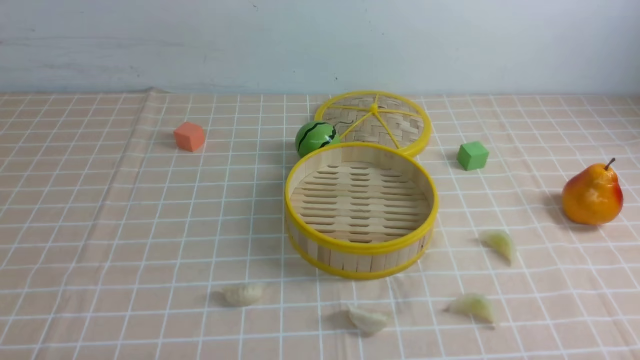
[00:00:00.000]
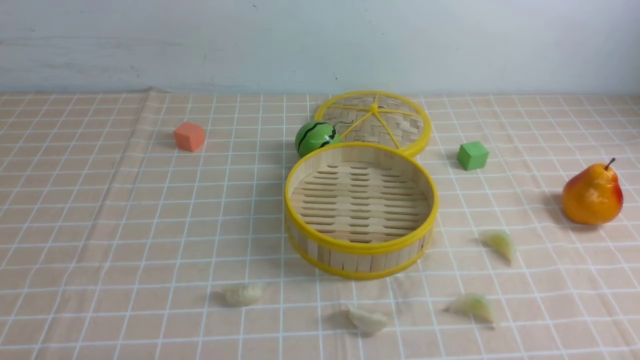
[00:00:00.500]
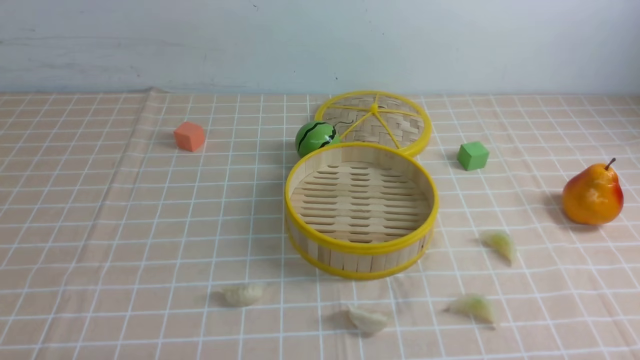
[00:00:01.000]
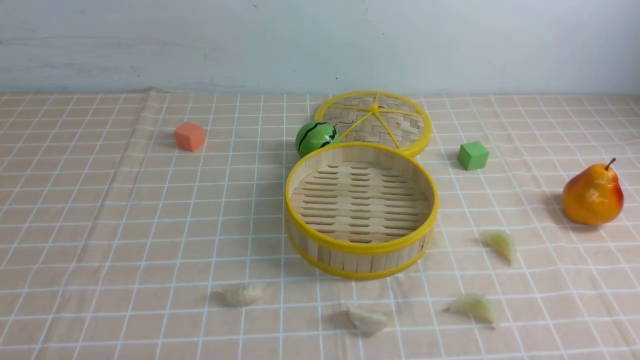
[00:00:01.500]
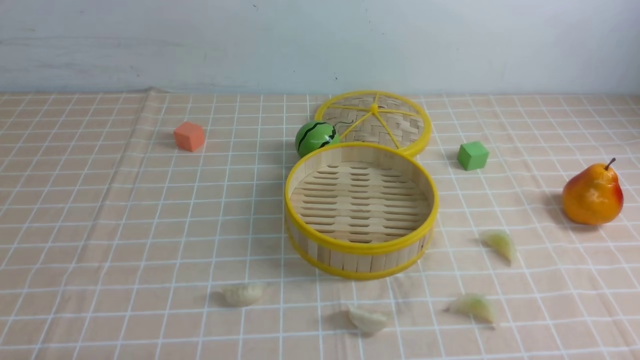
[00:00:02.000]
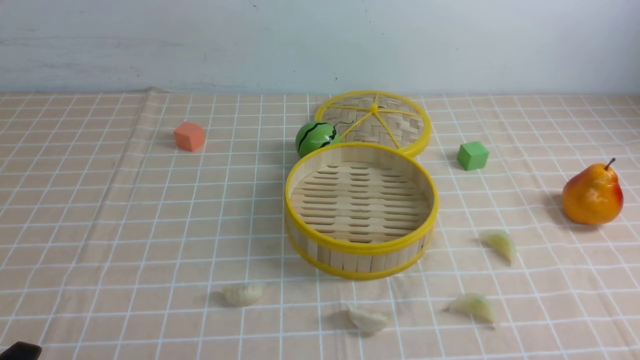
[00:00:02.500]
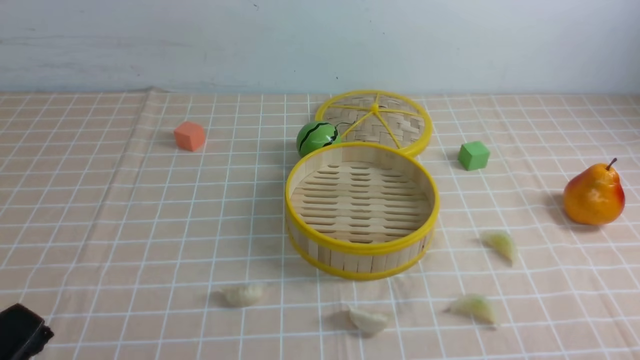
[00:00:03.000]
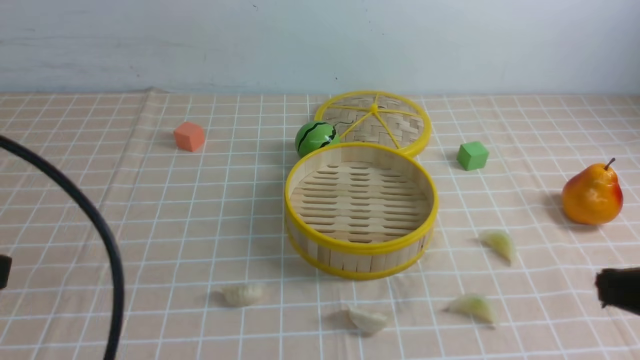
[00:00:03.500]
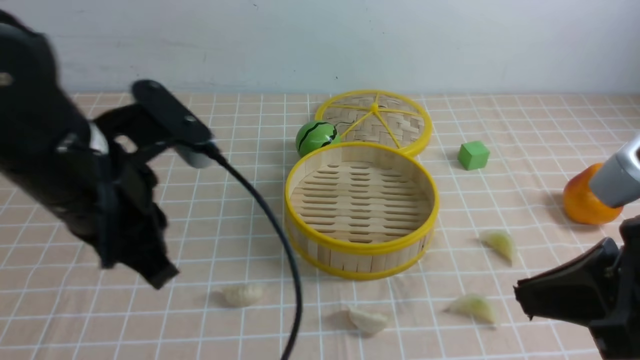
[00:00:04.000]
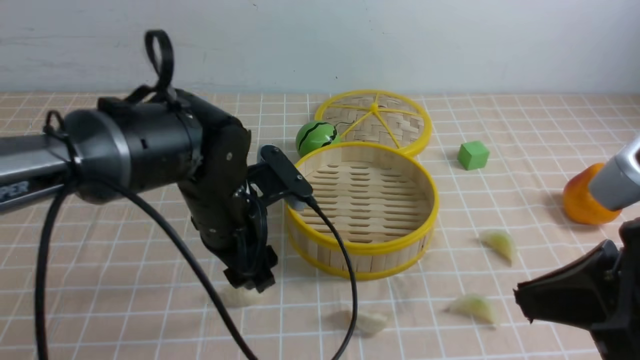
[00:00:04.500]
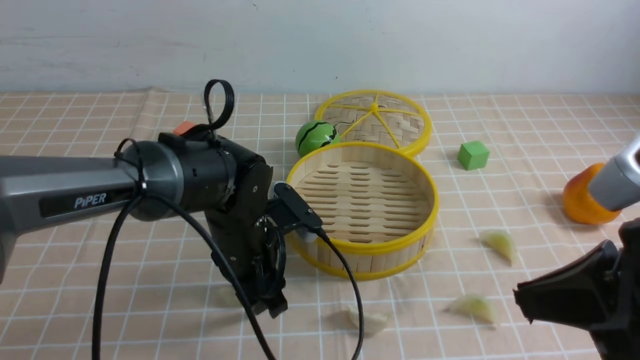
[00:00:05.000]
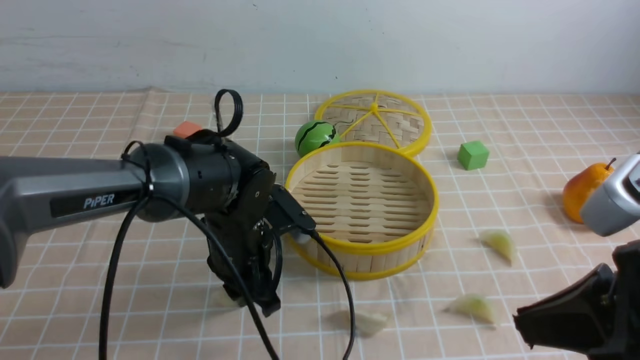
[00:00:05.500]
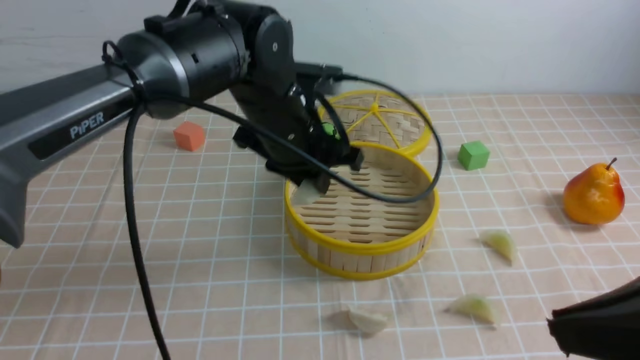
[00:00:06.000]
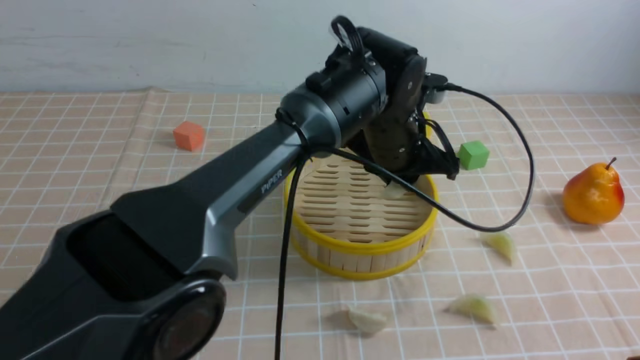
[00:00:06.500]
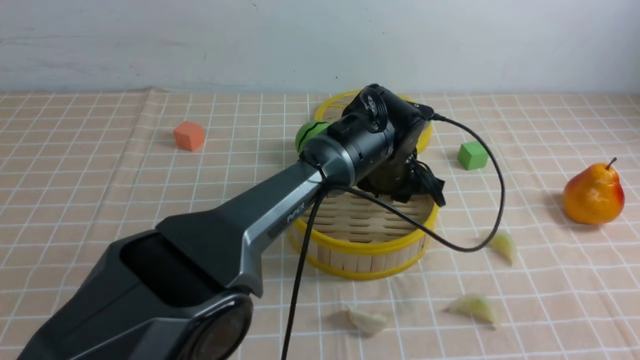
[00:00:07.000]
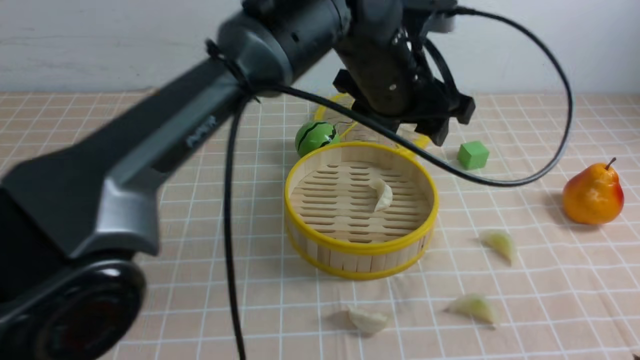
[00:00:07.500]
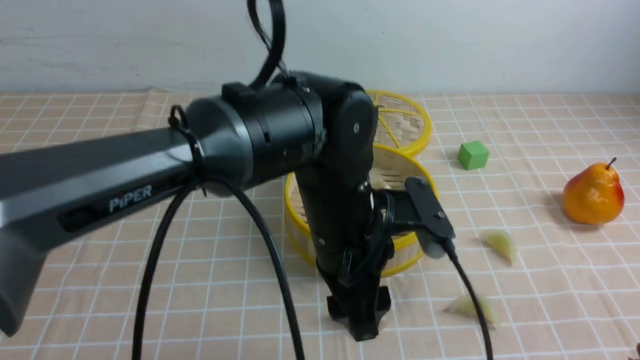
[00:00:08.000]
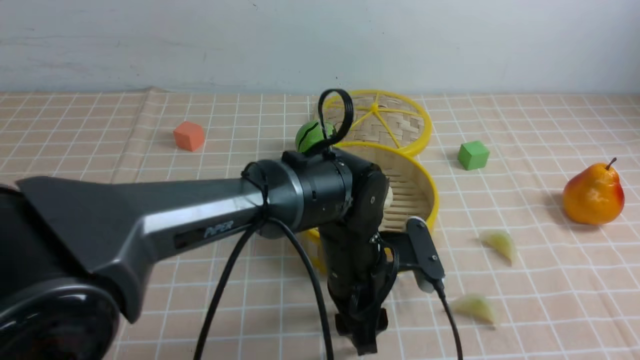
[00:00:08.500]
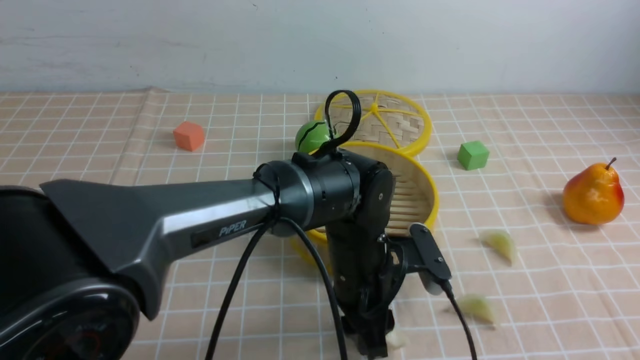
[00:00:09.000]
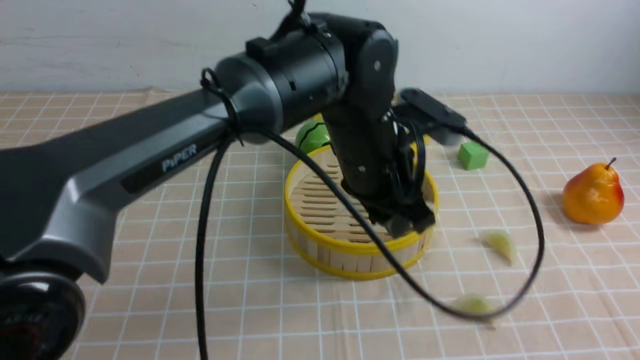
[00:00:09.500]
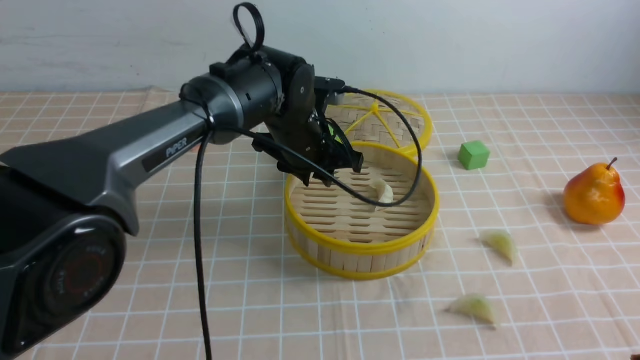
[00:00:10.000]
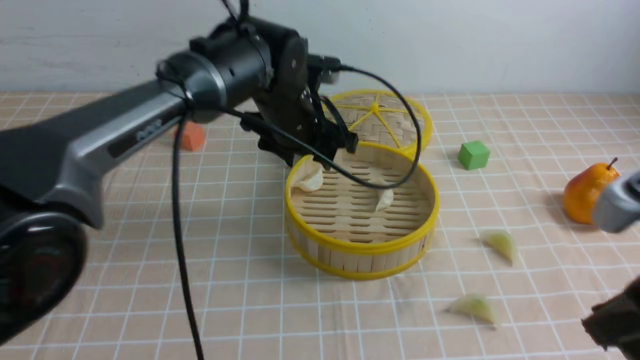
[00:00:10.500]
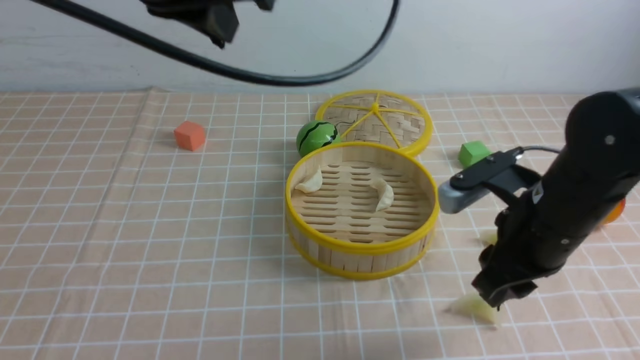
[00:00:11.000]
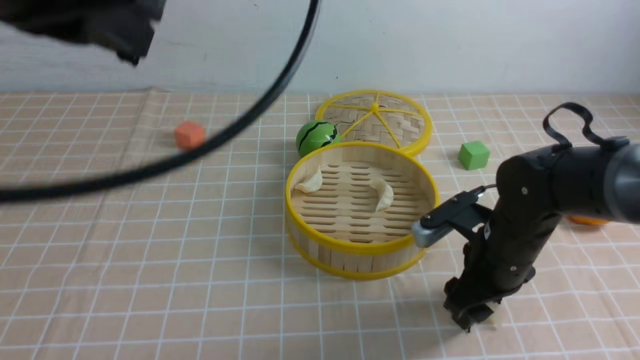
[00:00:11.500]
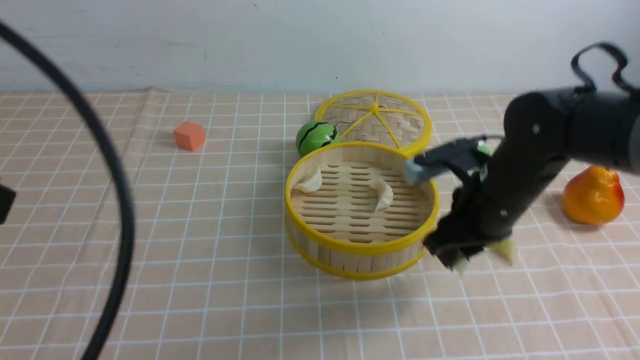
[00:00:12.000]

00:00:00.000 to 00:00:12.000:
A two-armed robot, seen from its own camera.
Task of the whole recording: put the dumplings into the steamer on the table with the brown tablecloth.
Step, 00:00:00.000 to 00:00:05.500: use the left arm to grab a dumpling.
Step, 00:00:06.000 to 00:00:07.000: use the left arm to put the dumpling into the steamer.
Step, 00:00:07.500 to 00:00:08.500: use the left arm to grab a dumpling.
Step, 00:00:09.000 to 00:00:10.500: use the left arm to put the dumpling into the steamer.
Step, 00:00:11.000 to 00:00:11.500: use the right arm to grab a dumpling.
00:00:02.000 to 00:00:04.000: The right gripper shifts about 20 cm upward, forward and to the left, and closes its fingers. Meanwhile the left gripper is displaced upward, forward and to the right by roughly 25 cm.
00:00:04.000 to 00:00:06.000: The left gripper travels forward, to the right and downward by some 20 cm, and opens, then closes again.
00:00:06.000 to 00:00:08.000: The right gripper travels backward by approximately 5 cm; the left gripper travels backward and to the right by approximately 10 cm, and opens.
00:00:08.000 to 00:00:10.000: The left gripper is displaced forward by about 15 cm.
00:00:10.000 to 00:00:12.000: The right gripper shifts approximately 30 cm forward and downward, and opens, then closes once more. Meanwhile the left gripper heads backward, upward and to the left, covering some 40 cm, and closes up.

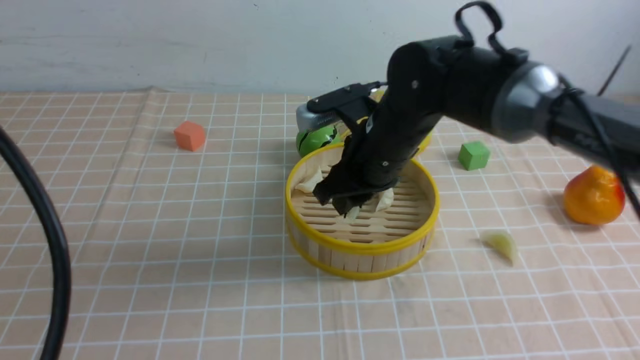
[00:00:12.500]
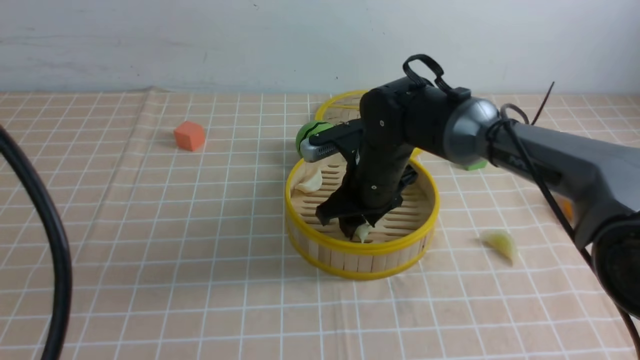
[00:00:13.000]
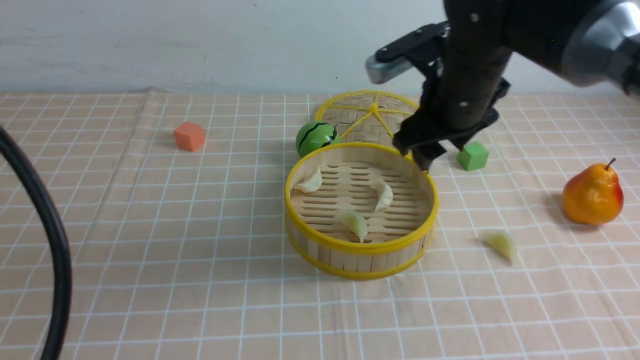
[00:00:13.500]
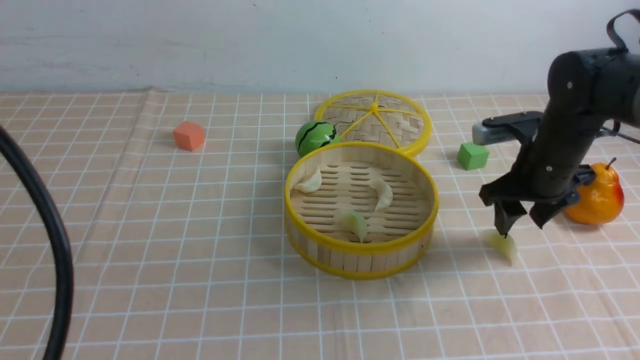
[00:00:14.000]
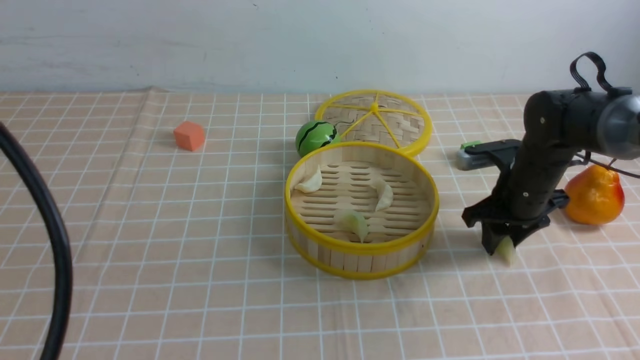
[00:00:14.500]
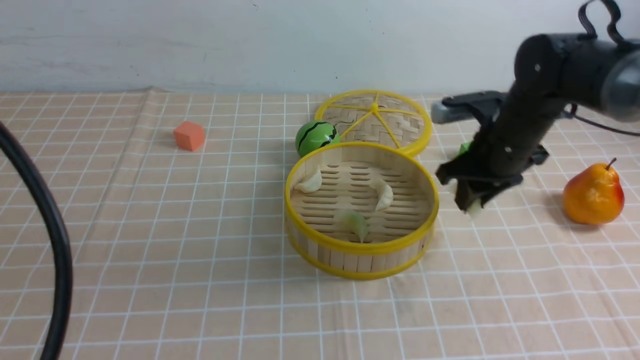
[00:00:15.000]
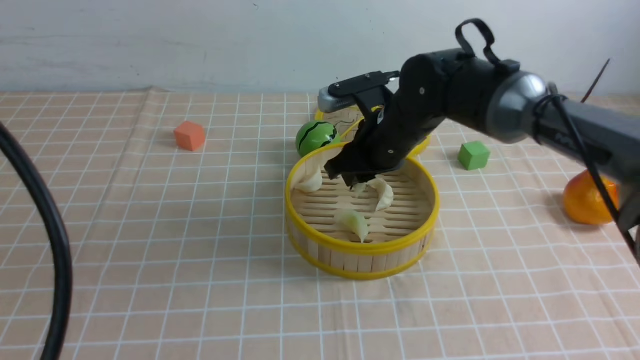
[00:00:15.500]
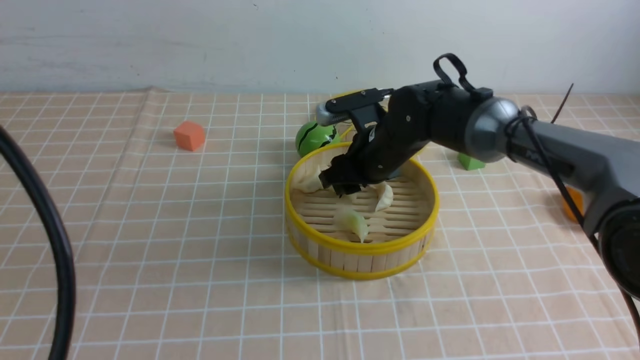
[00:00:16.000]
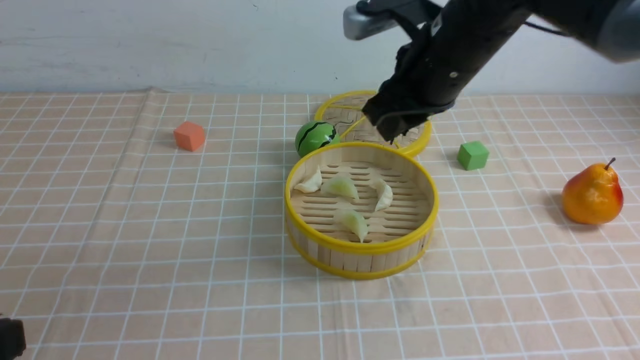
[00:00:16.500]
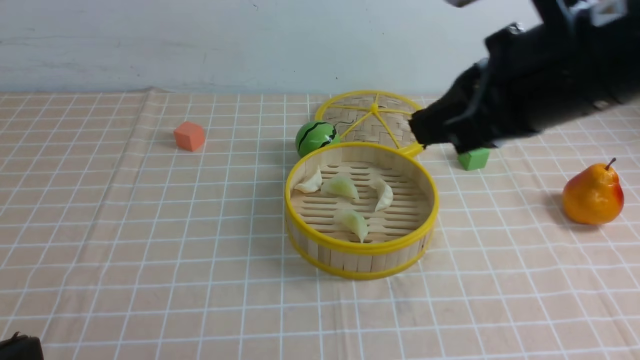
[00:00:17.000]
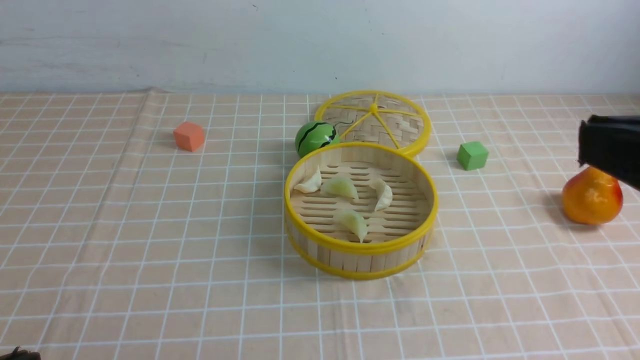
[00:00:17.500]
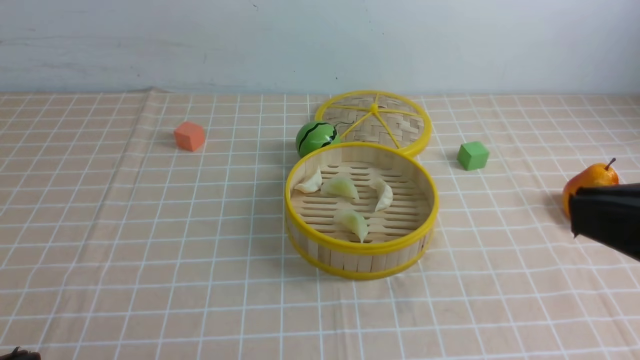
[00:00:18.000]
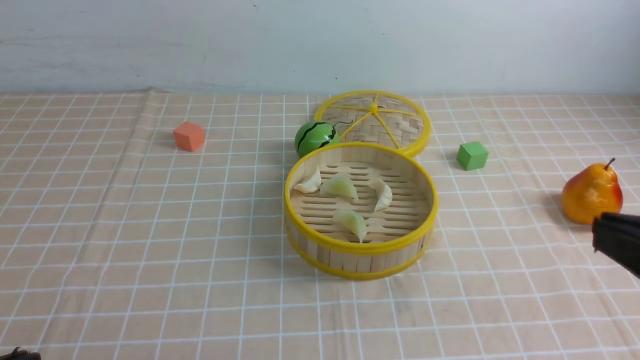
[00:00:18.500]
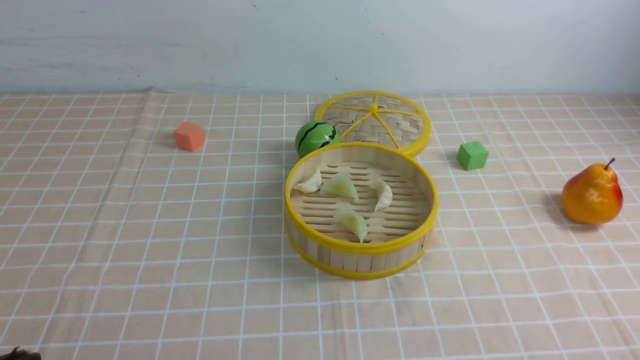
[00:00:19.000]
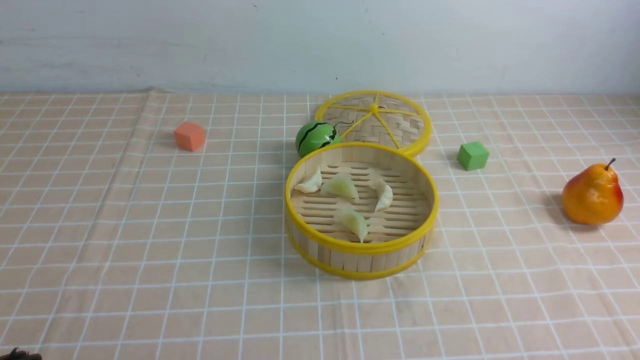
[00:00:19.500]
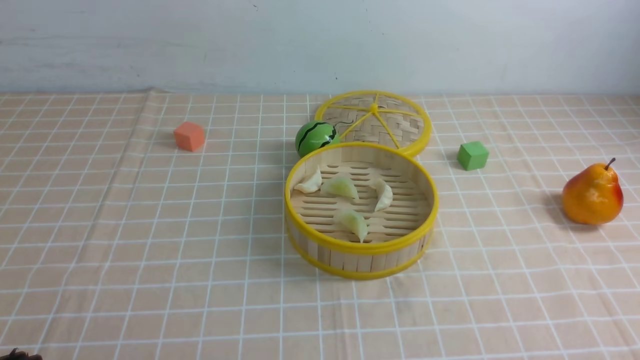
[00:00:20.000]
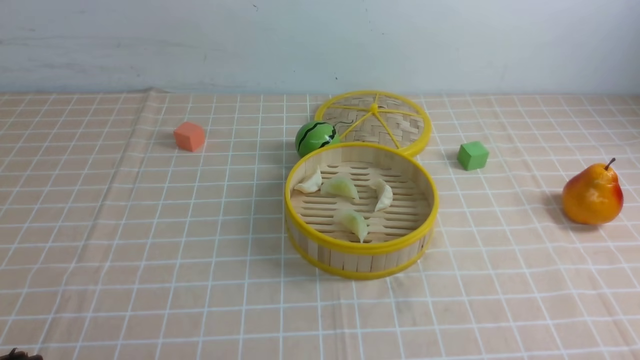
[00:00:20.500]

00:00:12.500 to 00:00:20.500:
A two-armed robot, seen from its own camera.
Task of the whole recording: put the dumplings into the steamer on the table with the brown tablecloth.
Step, 00:00:13.500 to 00:00:14.500: use the right arm to grab a dumpling.
Step, 00:00:15.000 to 00:00:16.000: use the right arm to put the dumpling into the steamer.
00:00:12.500 to 00:00:14.500: The right gripper moves to the right and downward, approximately 20 cm.
00:00:14.500 to 00:00:16.500: The left gripper moves downward, about 10 cm. The right gripper shifts roughly 20 cm upward and to the left.
00:00:16.500 to 00:00:18.500: The left gripper travels downward by roughly 5 cm; the right gripper heads backward and to the right, covering approximately 35 cm, and closes.
00:00:18.500 to 00:00:20.500: The right gripper travels downward by approximately 20 cm.
